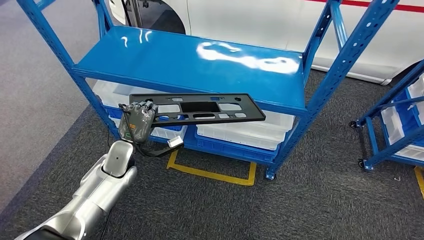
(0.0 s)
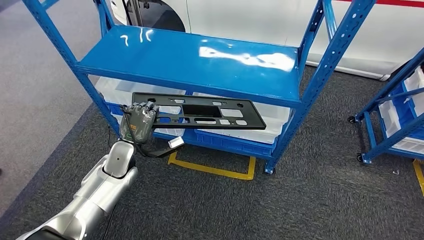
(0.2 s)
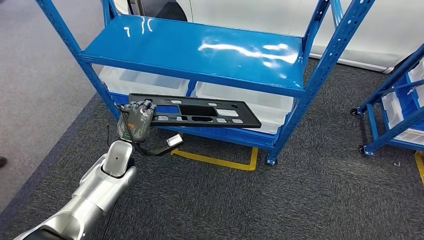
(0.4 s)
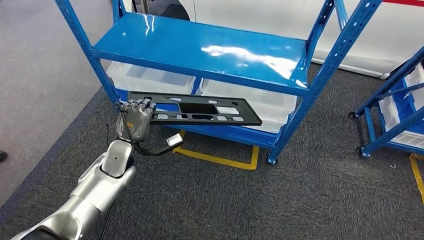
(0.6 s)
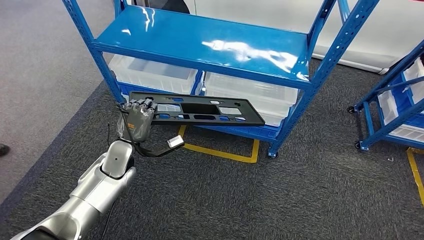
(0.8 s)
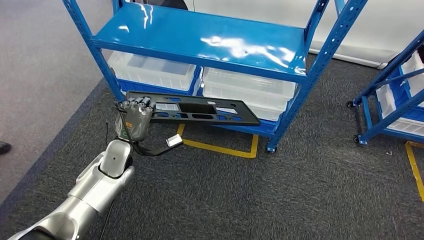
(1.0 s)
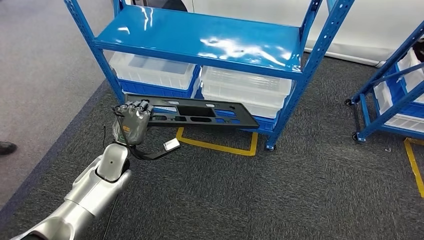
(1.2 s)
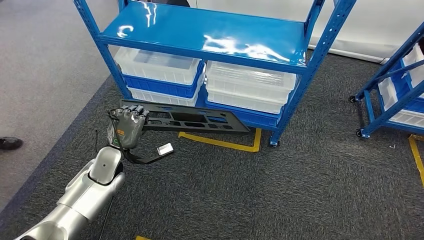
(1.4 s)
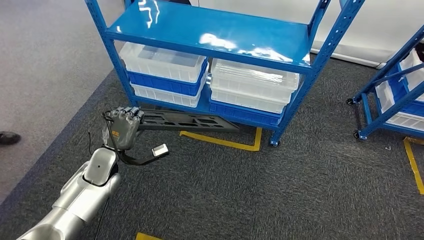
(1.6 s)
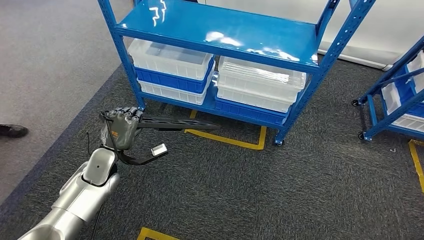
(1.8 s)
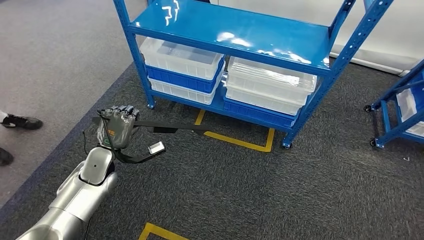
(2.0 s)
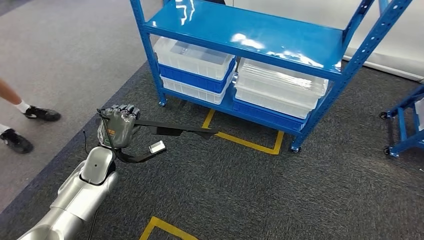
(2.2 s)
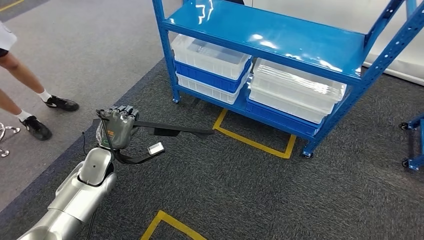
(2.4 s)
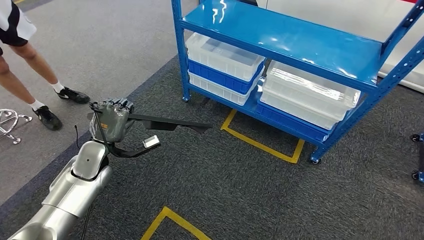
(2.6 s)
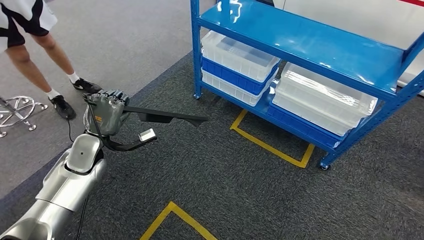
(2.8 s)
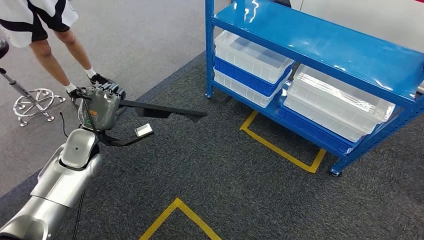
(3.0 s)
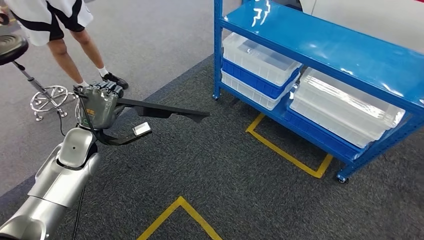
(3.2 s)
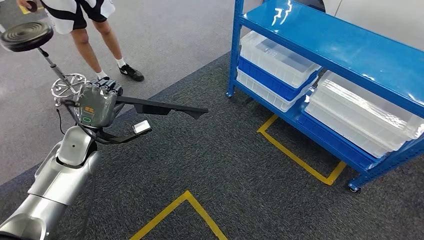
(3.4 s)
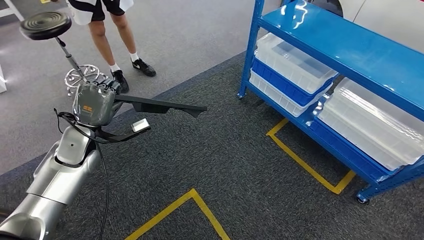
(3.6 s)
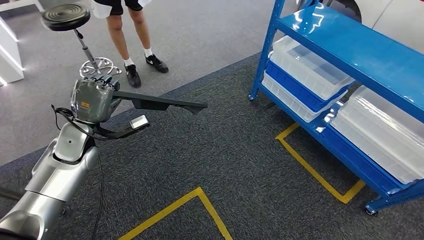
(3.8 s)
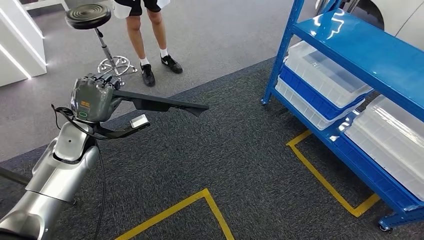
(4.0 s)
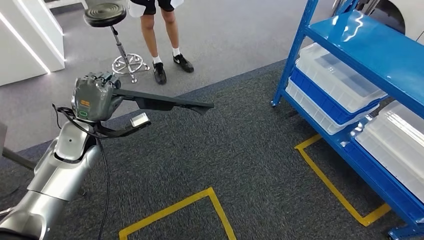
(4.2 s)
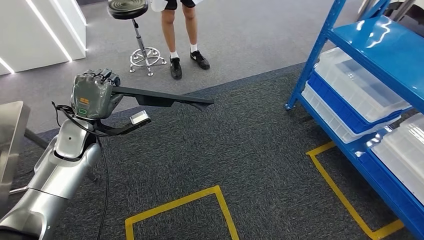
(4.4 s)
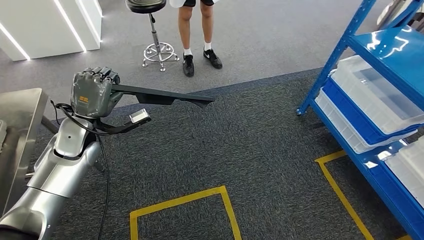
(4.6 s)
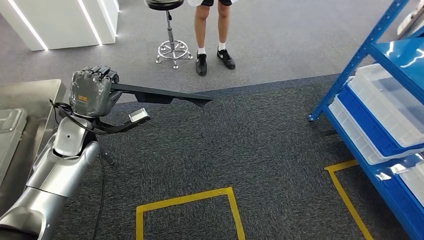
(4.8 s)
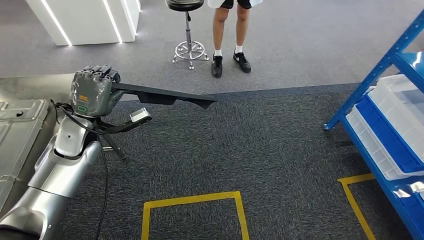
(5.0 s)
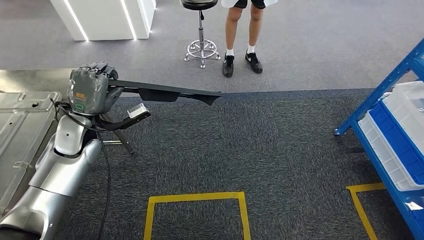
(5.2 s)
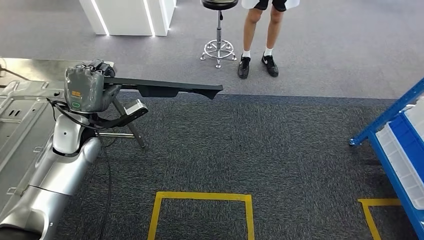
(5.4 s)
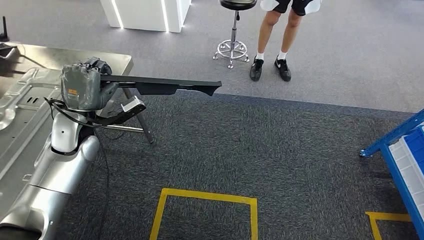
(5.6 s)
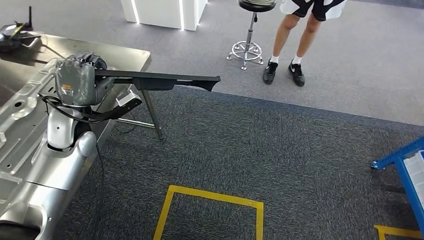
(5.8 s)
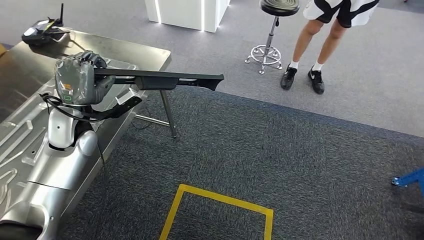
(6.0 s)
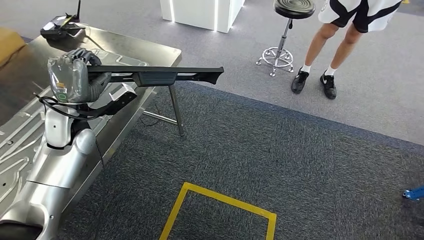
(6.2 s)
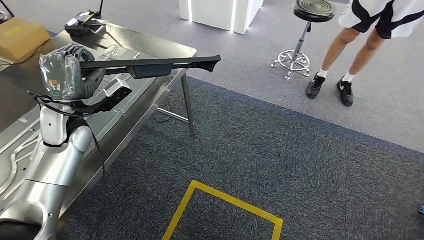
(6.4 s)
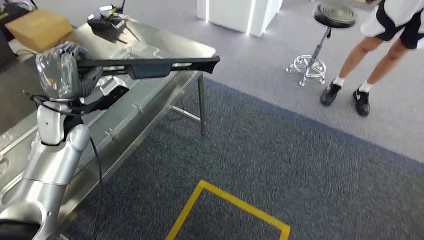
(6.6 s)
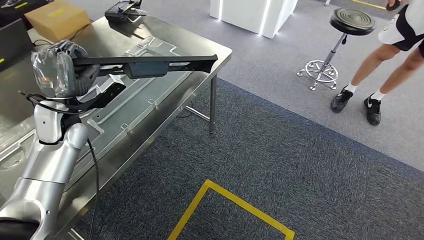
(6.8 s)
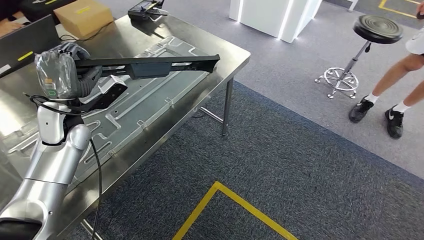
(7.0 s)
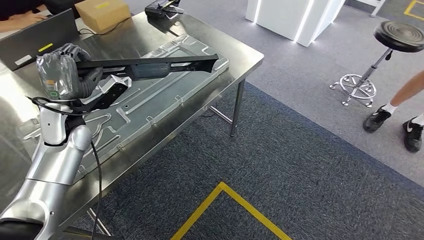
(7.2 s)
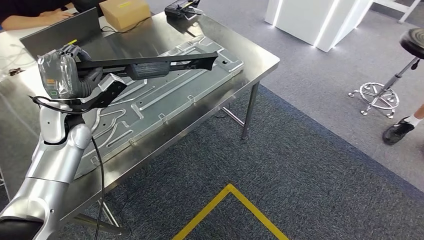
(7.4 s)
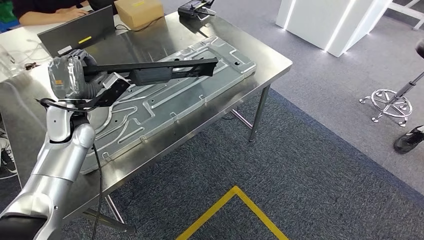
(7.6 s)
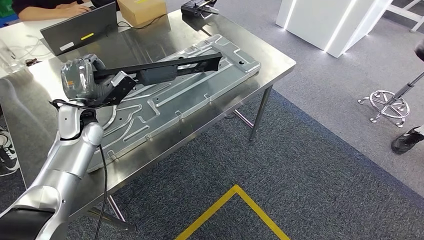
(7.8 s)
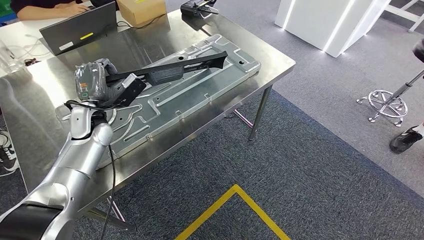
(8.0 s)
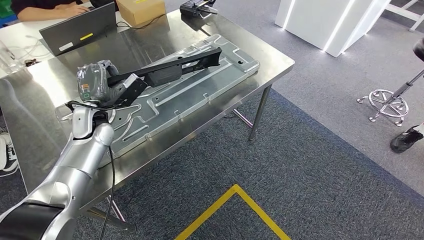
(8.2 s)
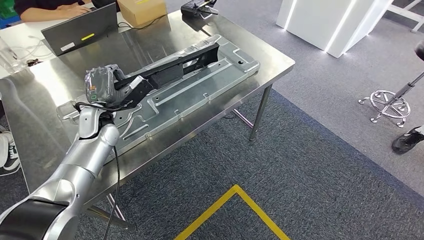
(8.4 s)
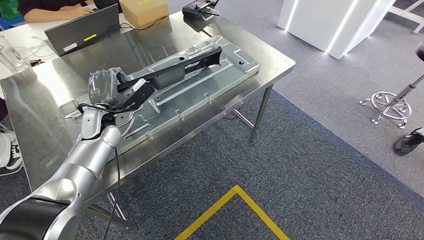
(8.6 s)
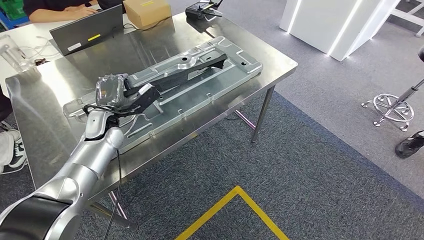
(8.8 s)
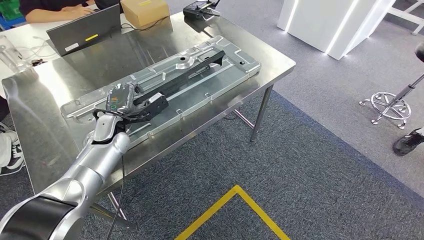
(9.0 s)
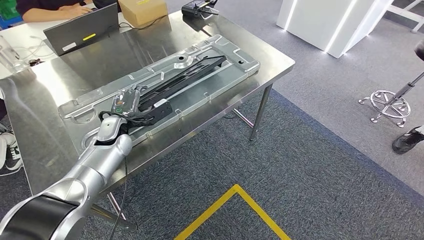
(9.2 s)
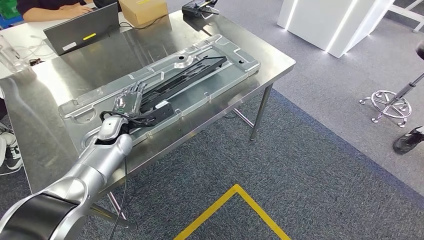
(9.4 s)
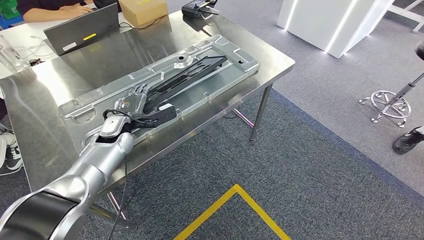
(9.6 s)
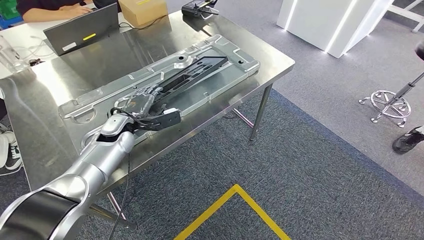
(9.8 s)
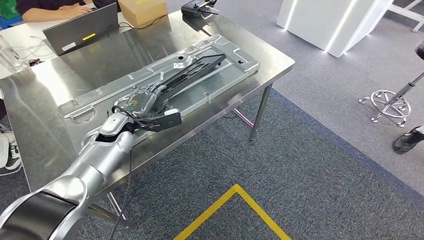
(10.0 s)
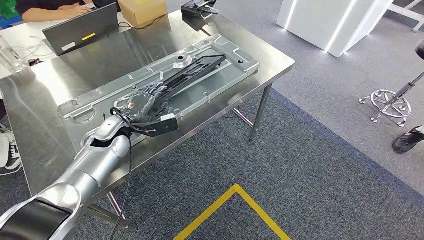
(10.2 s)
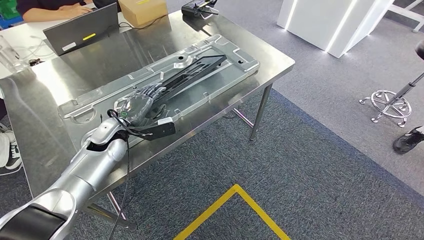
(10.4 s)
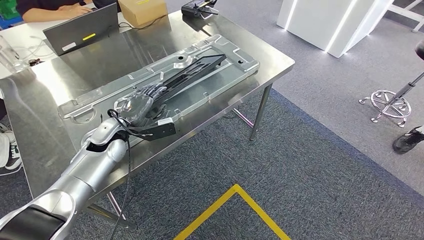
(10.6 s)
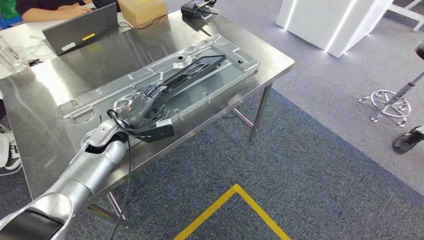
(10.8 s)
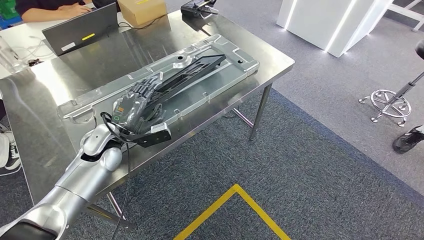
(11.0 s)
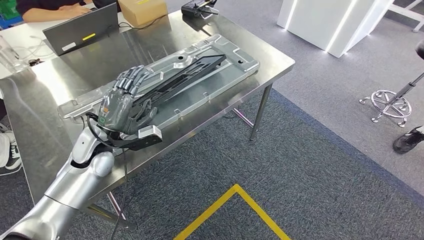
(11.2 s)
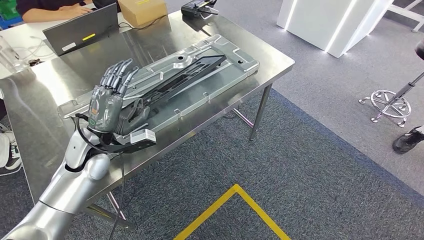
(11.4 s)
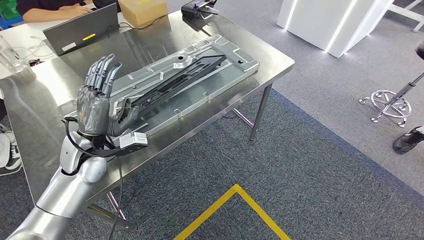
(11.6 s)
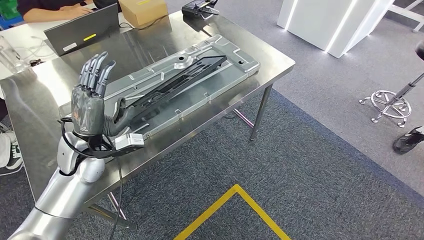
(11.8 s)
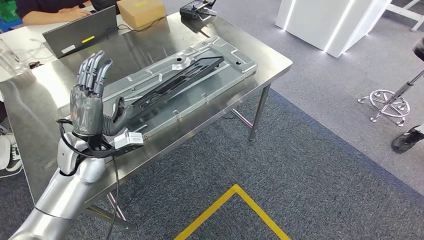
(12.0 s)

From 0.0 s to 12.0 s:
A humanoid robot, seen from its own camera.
Step, from 2.2 s to 7.0 s: Move the large material to the workbench.
From 10.4 s to 12.0 s: The left hand shifts about 10 cm backward and upward.

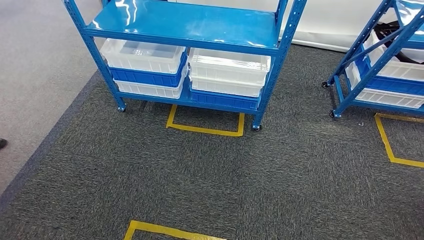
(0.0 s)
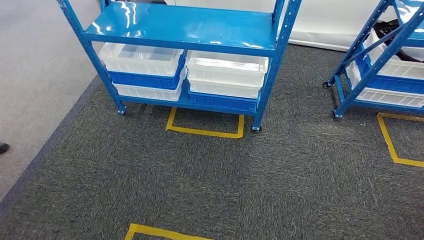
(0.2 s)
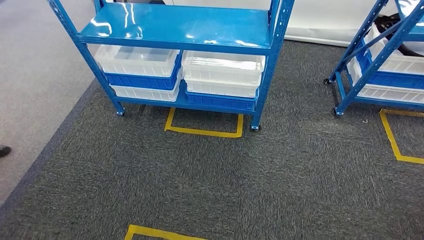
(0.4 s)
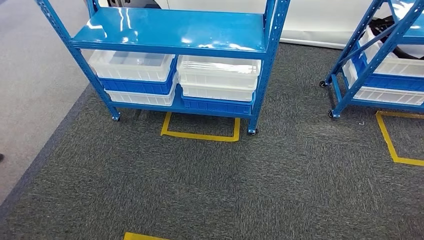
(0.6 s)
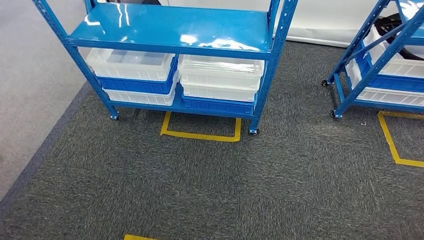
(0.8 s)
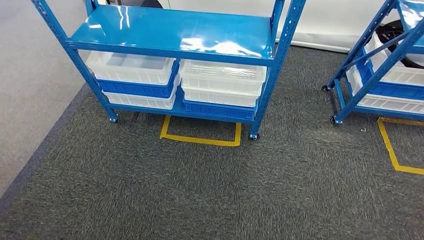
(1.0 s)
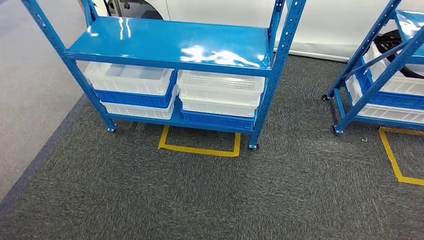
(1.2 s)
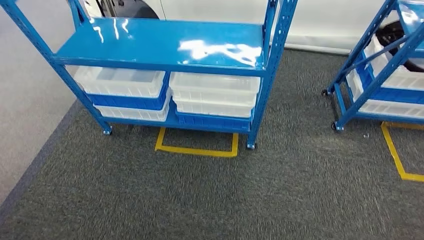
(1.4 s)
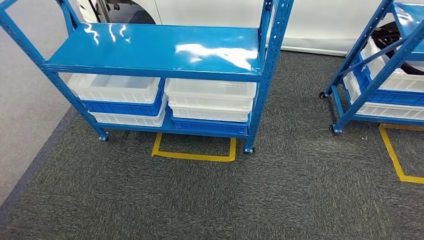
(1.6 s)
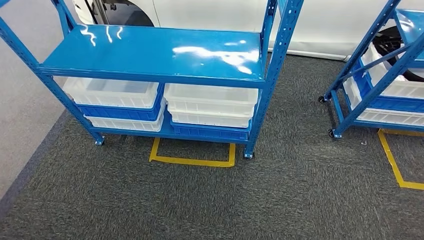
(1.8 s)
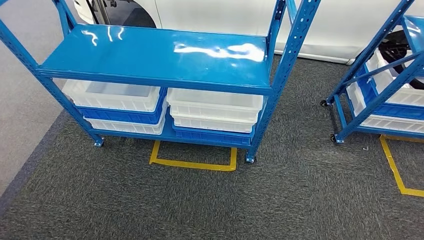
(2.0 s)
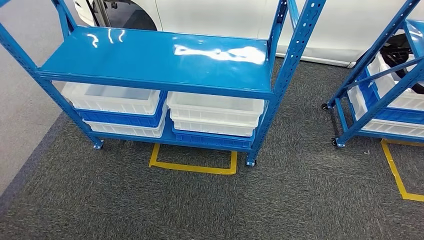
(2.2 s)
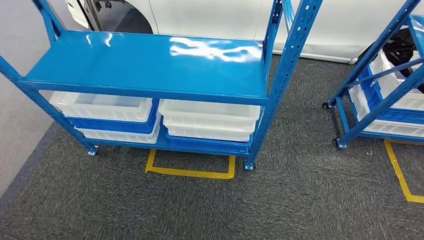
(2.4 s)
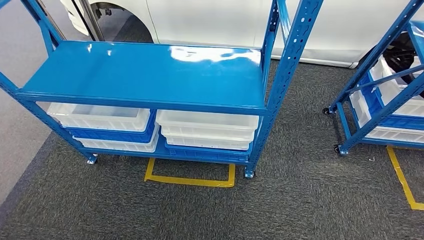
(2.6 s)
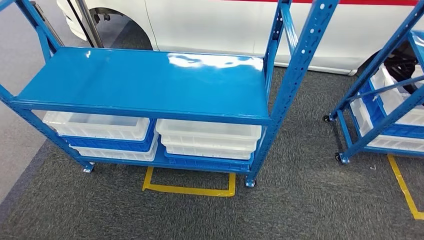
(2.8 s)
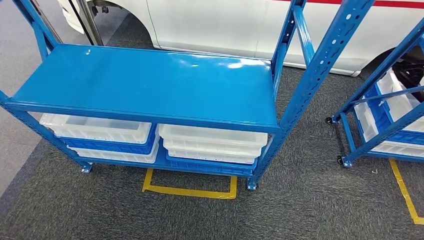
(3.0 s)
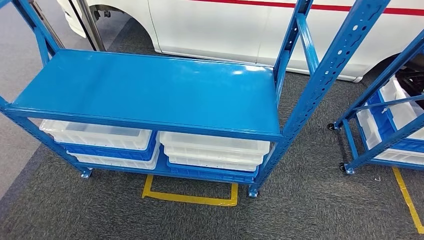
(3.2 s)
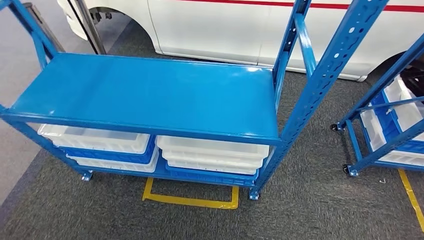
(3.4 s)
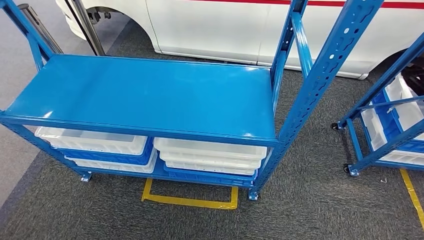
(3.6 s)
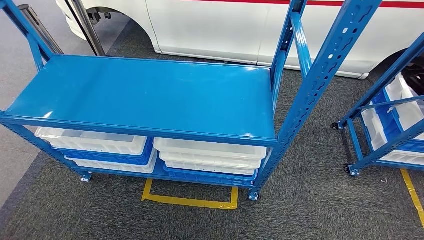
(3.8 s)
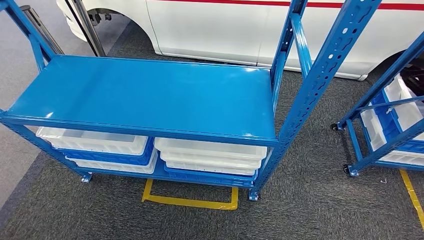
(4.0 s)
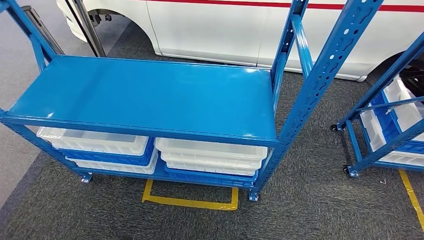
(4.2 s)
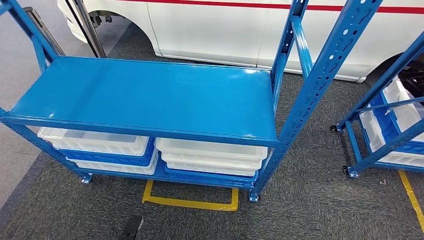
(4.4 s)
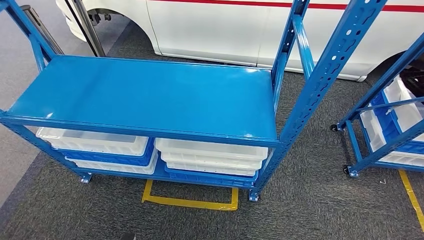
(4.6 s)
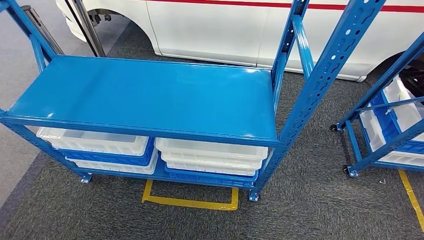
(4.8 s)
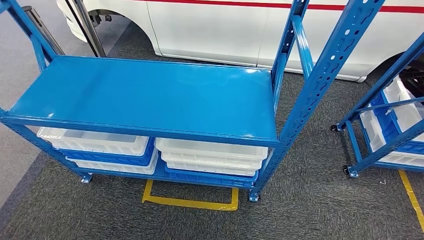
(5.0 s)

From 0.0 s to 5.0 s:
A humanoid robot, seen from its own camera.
Step, from 0.0 s to 5.0 s: Move to the initial position of the shelf.
From 3.4 s to 5.0 s: The left hand reaches roughly 10 cm forward, then returns.
